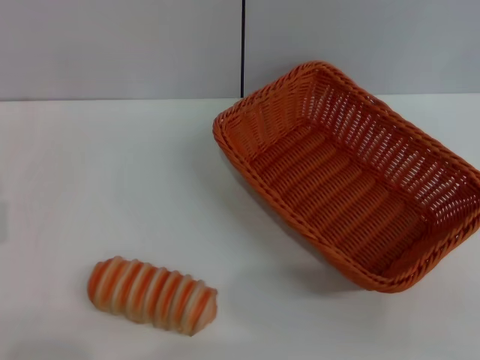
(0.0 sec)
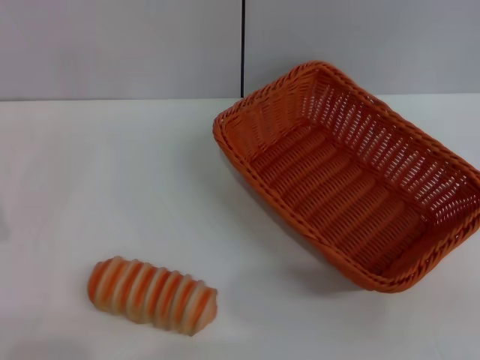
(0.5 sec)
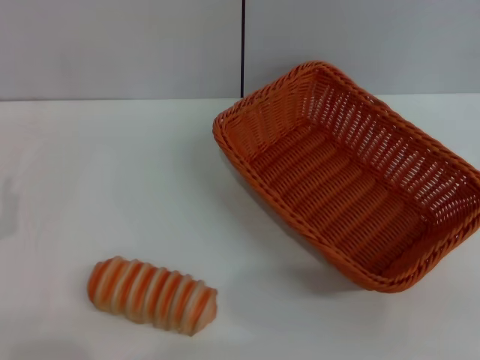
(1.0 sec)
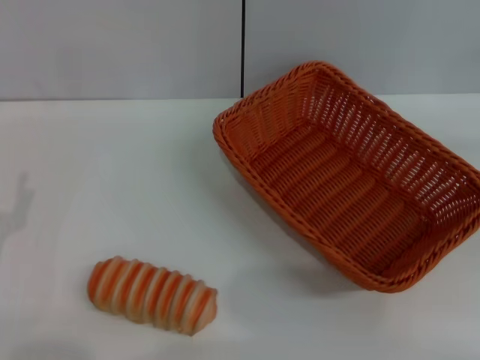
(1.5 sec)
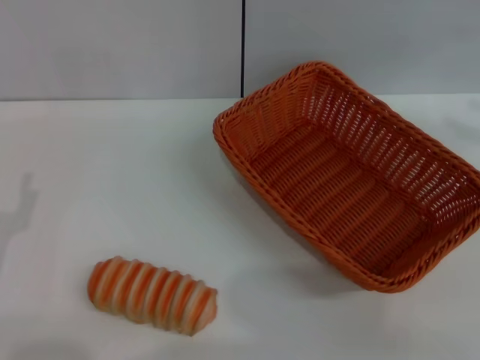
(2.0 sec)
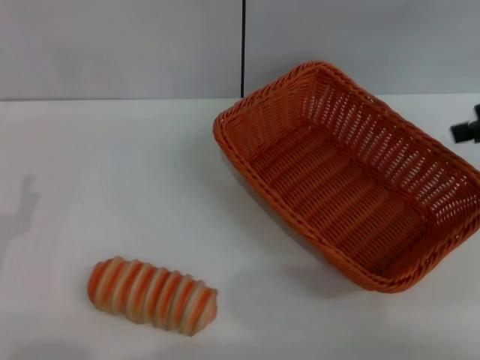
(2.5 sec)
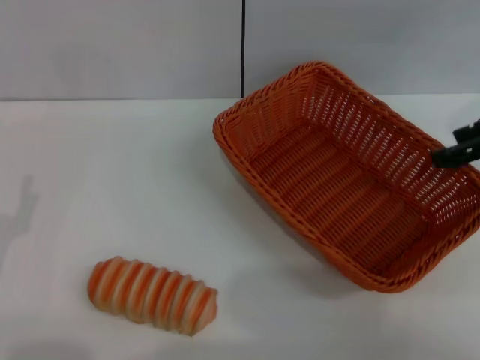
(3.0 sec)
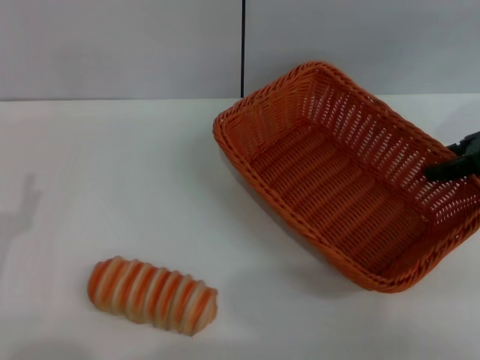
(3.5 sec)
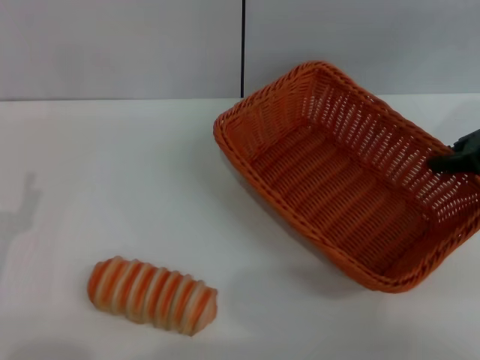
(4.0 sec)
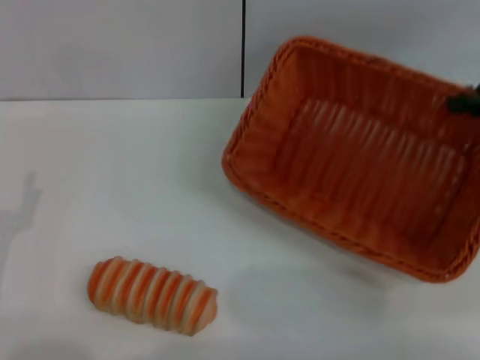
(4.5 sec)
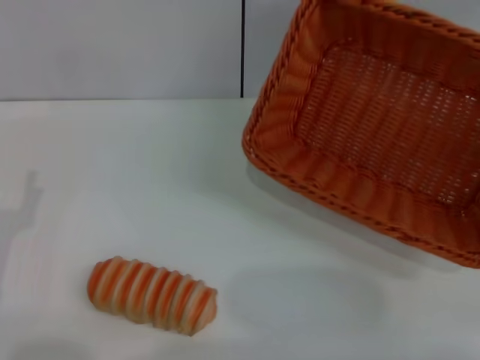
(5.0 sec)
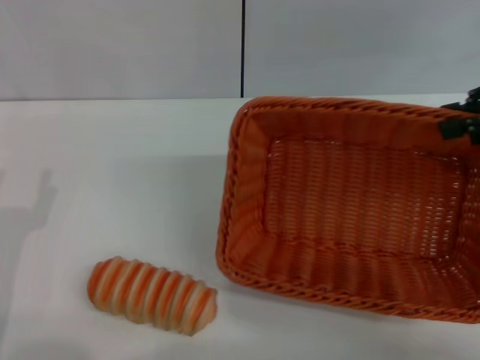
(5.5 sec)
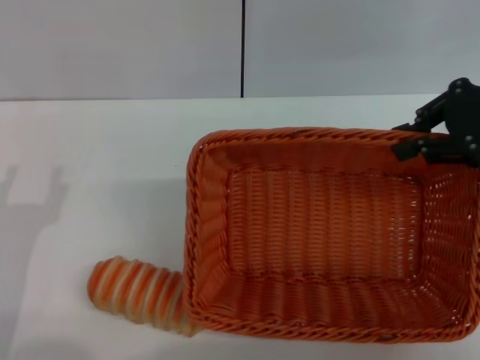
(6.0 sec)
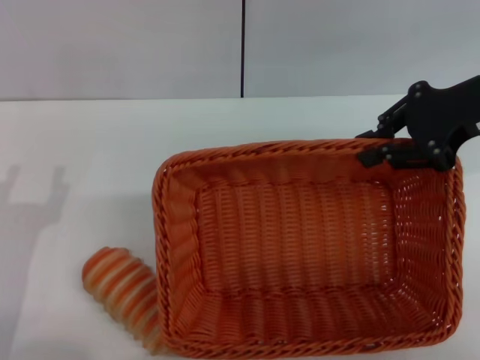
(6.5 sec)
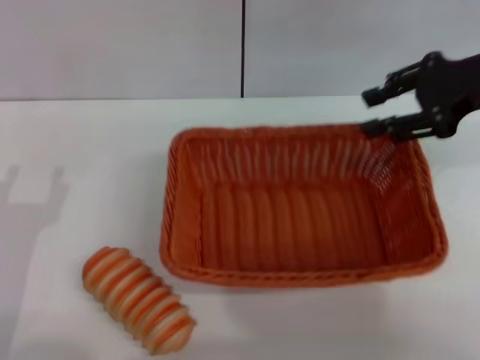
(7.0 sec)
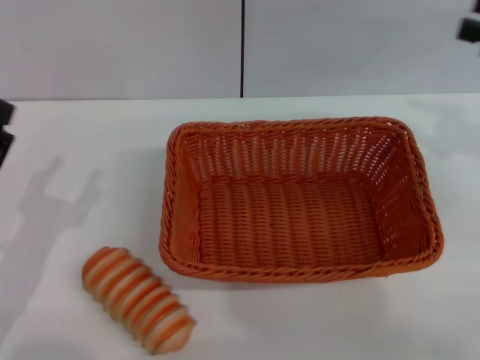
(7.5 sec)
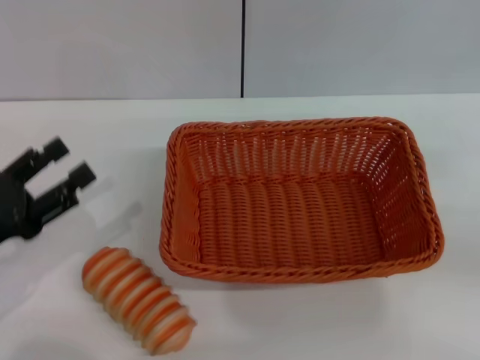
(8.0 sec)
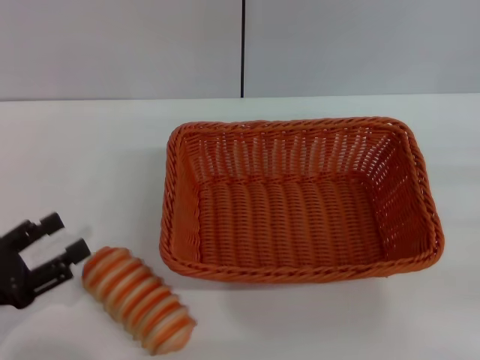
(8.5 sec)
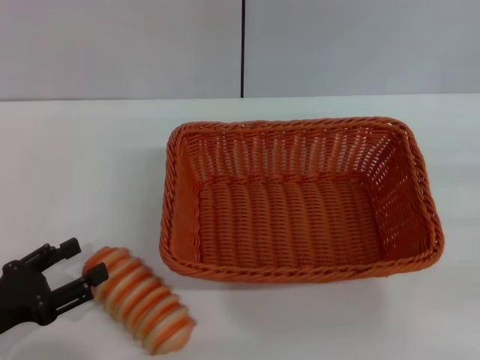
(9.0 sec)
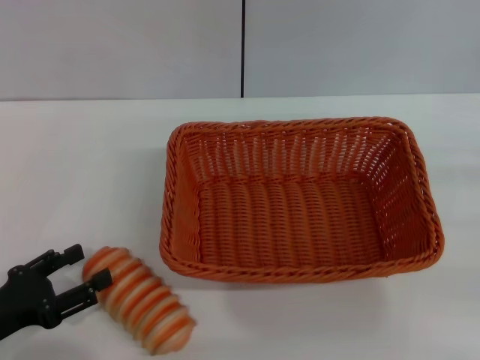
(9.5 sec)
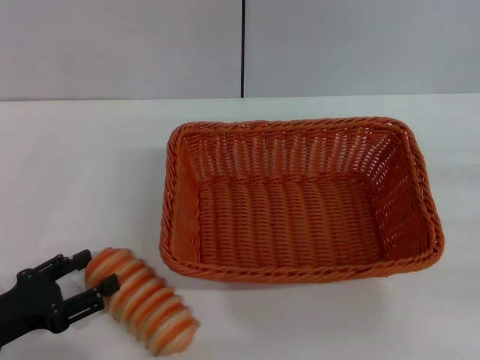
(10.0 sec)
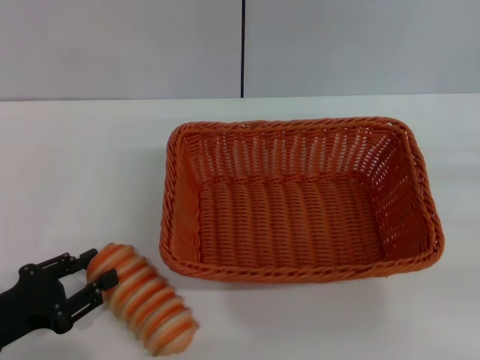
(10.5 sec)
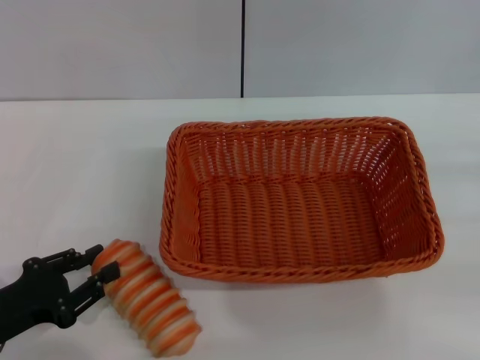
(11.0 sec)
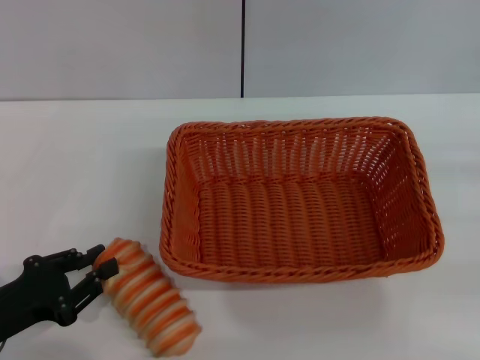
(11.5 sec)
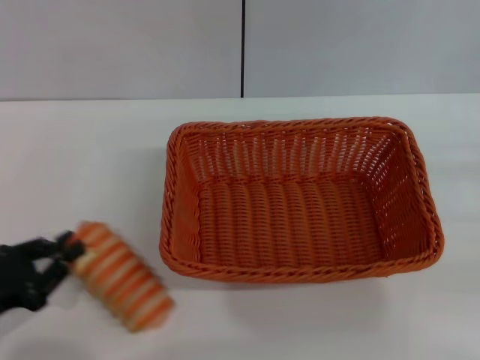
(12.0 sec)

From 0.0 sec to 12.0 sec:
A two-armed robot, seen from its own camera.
Step, from 0.0 sec to 5.0 sec: Pick up the light basket with the right gripper.
Step, from 5.5 sec to 7.5 sec: Place the light basket in the center of view with the right gripper.
From 2.0 sec to 4.0 sec: The right gripper heads to the left and downward, covering some 10 cm, and closes up.
From 4.0 sec to 6.0 sec: The right gripper moves roughly 5 cm to the right and comes back.
From 6.0 sec to 8.0 sec: The left gripper ends up some 5 cm from where it was, while the right gripper is displaced to the right, backward and downward by about 20 cm, and opens its fingers.
From 8.0 sec to 10.0 sec: The left gripper moves about 5 cm.
From 10.0 sec to 12.0 sec: The left gripper closes its fingers.

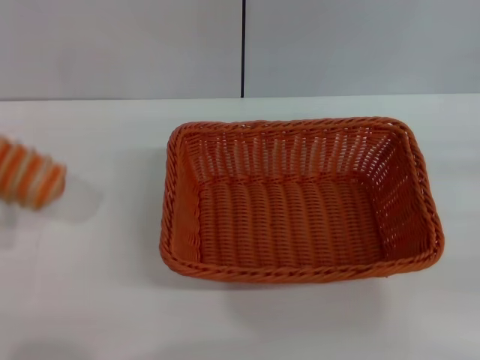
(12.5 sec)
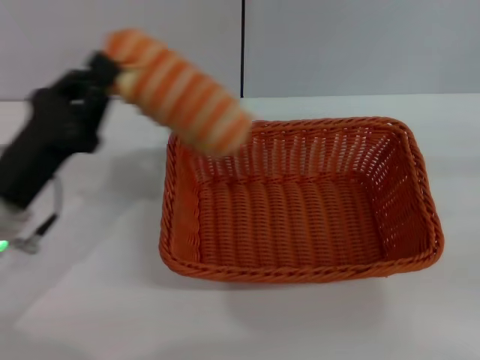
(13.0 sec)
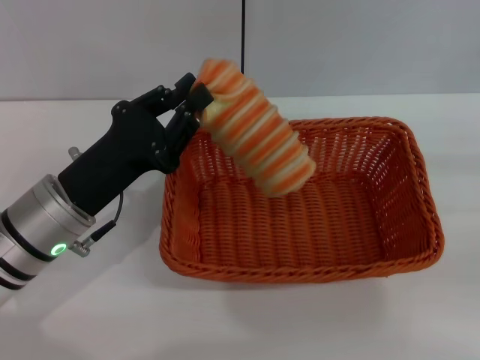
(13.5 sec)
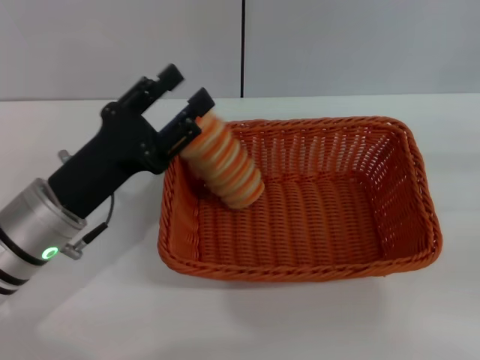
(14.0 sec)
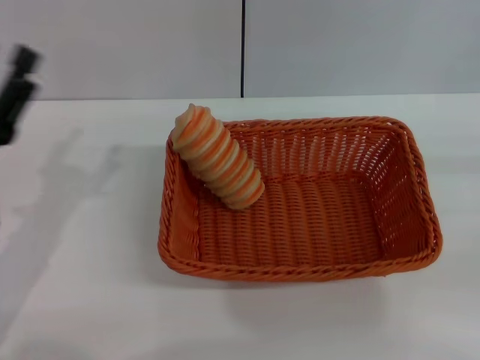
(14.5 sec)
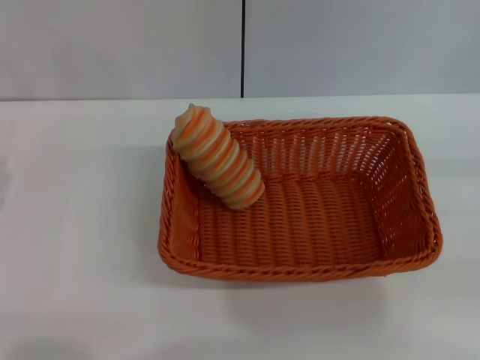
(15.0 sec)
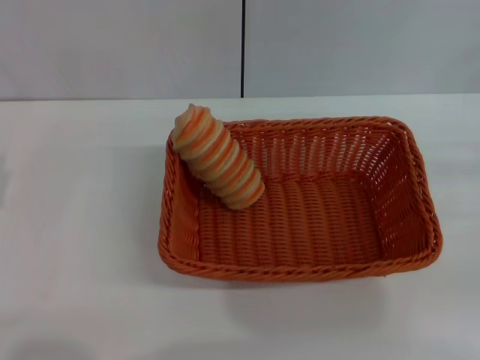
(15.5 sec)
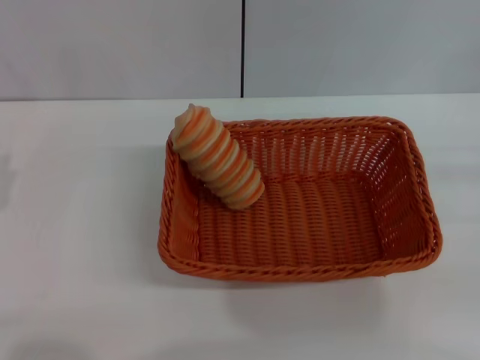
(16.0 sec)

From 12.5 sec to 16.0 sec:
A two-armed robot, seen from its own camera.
Step, from 13.0 sec to 14.5 sec: Place the long bread into the light basket with the left gripper.
From 12.5 sec to 14.5 sec: The left gripper goes roughly 15 cm to the right and forward, and opens its fingers.
From 14.5 sec to 16.0 sec: The left gripper heads to the left, covering approximately 5 cm.
